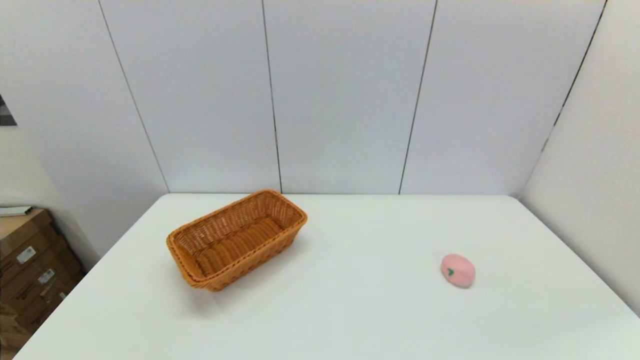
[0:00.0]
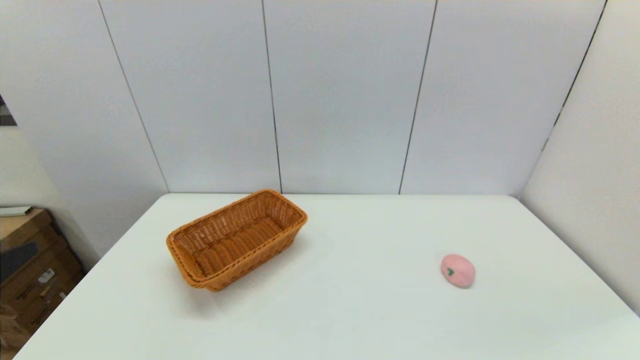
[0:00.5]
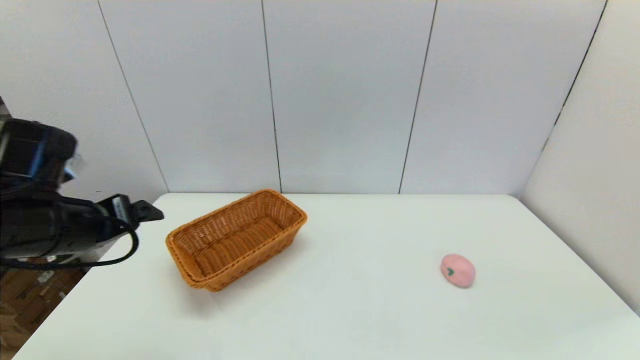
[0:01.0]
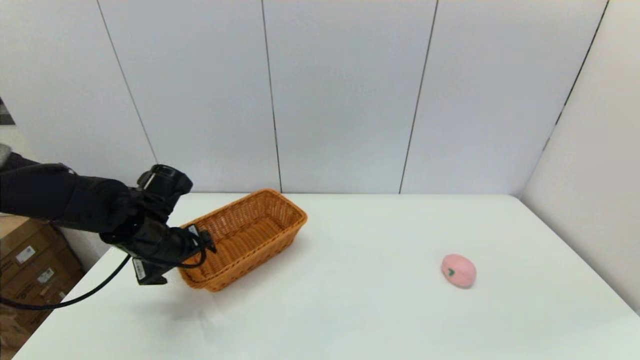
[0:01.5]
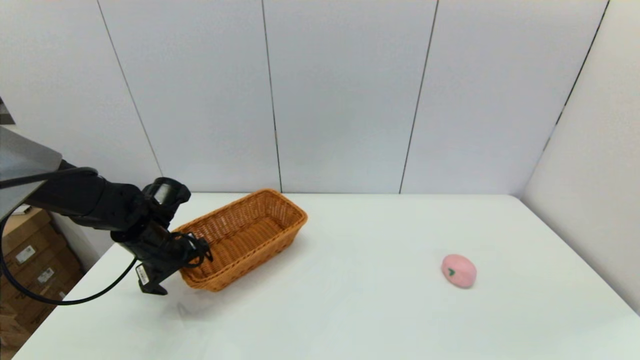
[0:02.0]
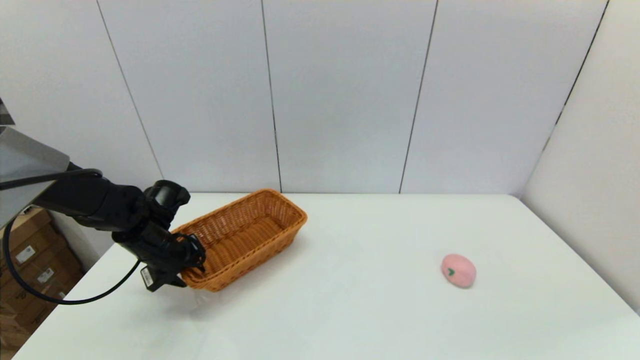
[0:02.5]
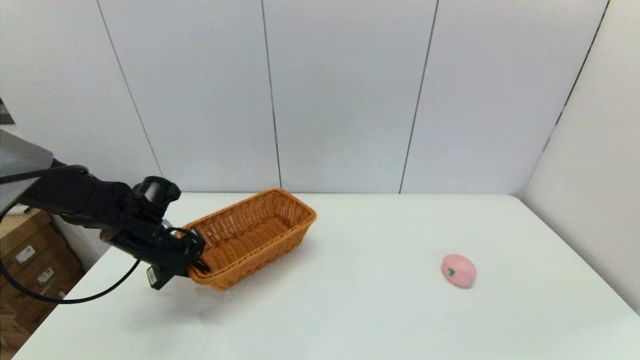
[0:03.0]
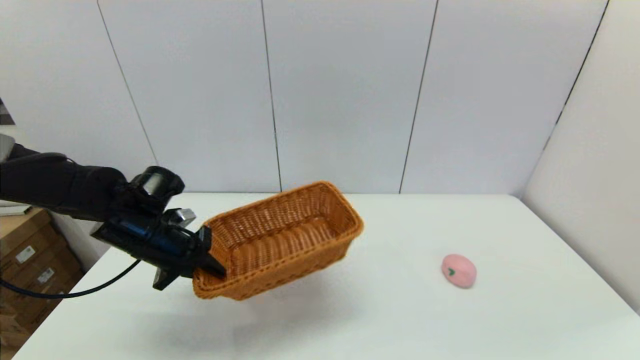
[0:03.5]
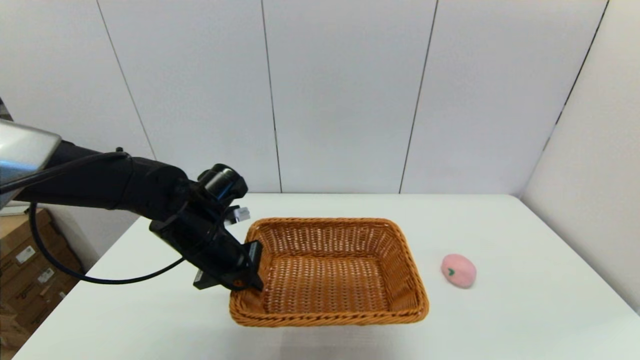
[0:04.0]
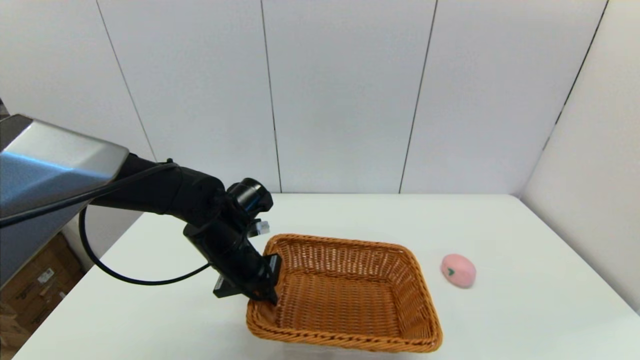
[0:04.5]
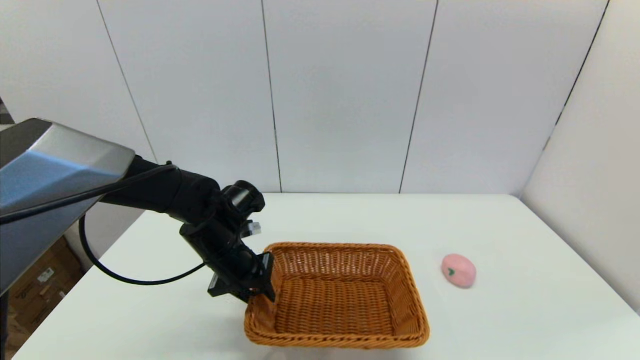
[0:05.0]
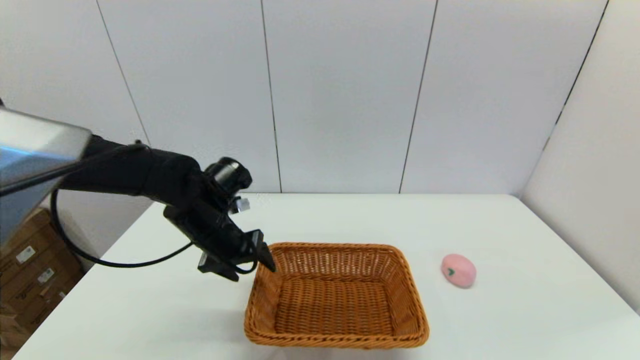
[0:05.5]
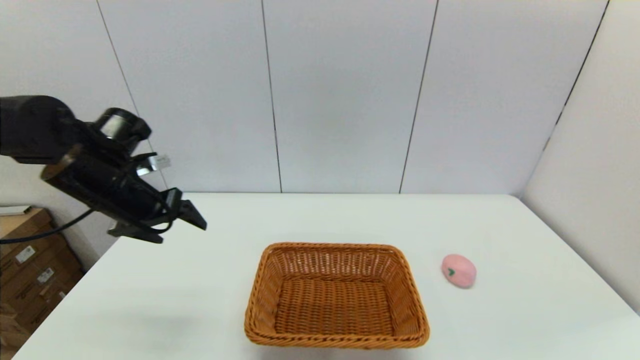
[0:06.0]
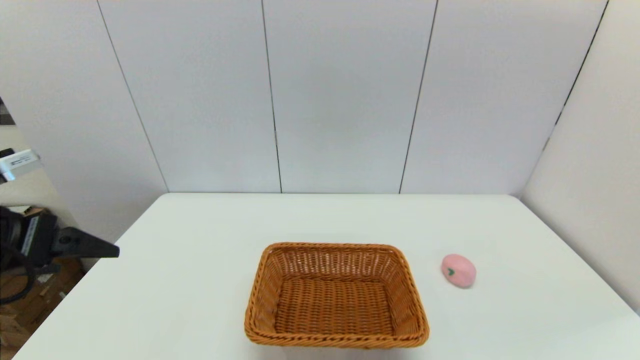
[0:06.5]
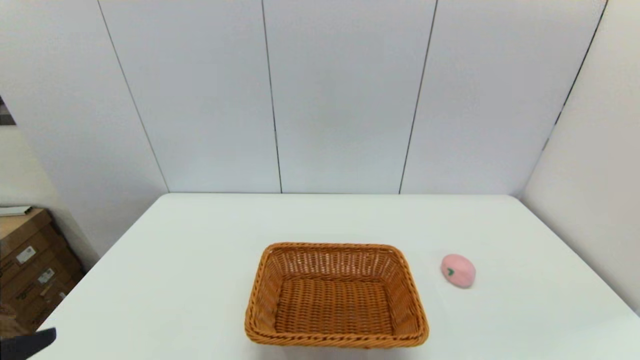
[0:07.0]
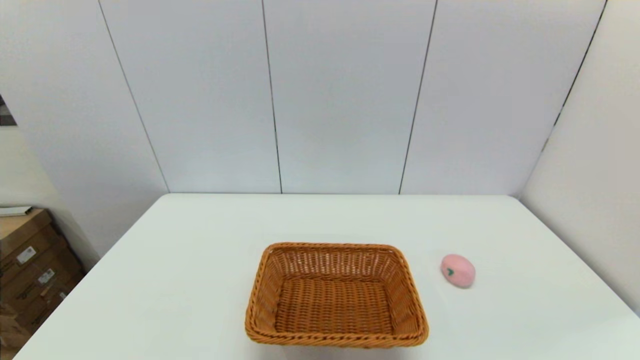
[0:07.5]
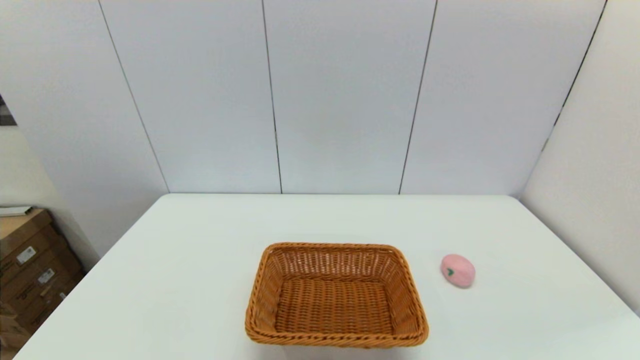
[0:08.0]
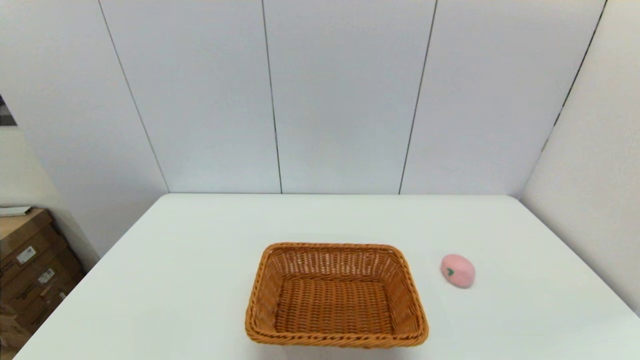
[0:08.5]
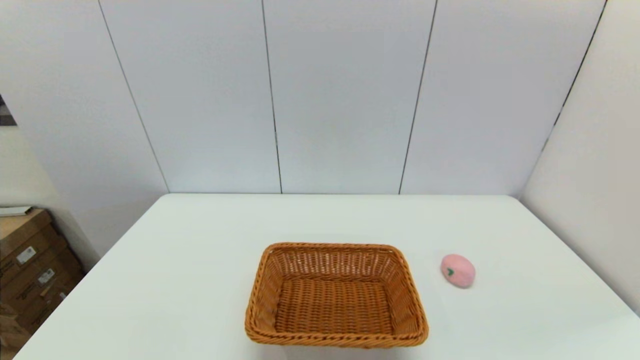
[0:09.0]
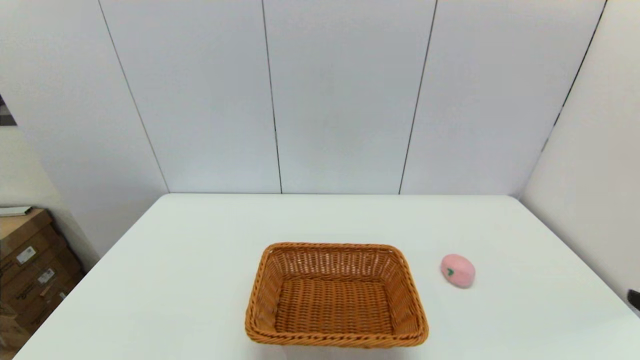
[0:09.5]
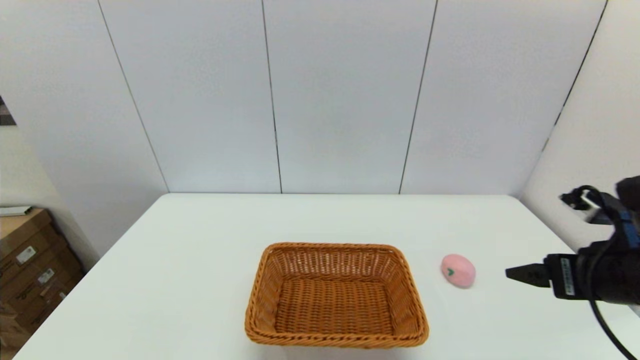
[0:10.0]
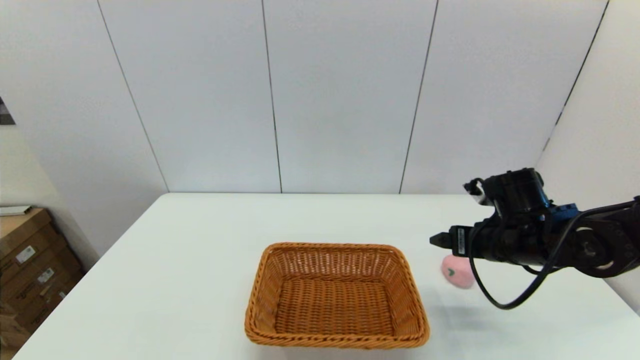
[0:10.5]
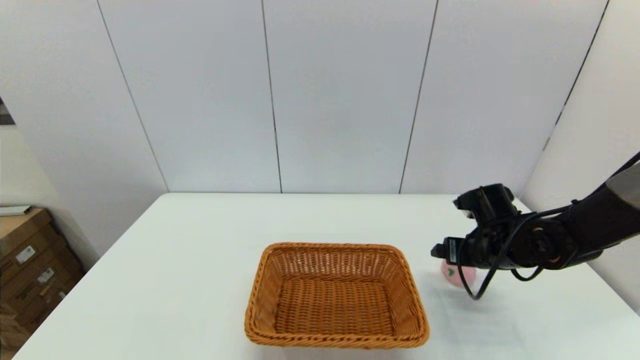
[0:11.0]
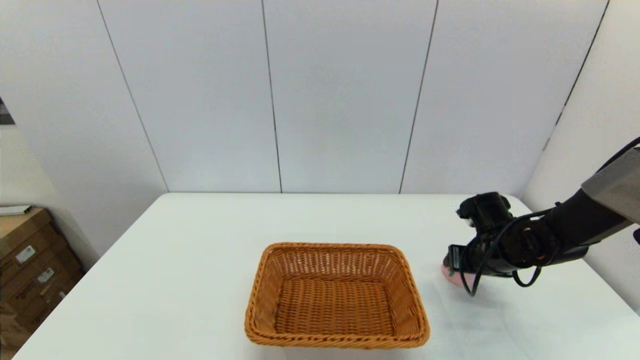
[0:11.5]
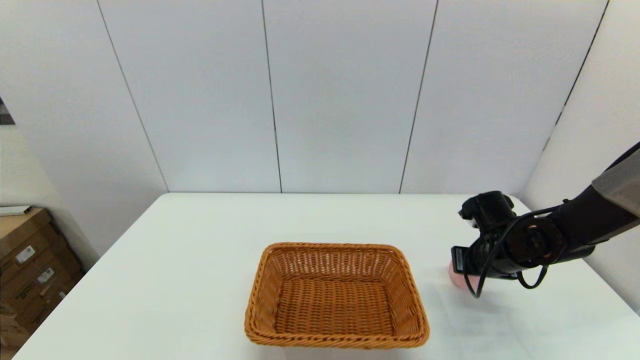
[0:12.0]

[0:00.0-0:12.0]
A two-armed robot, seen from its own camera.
Step, 0:00.0 to 0:02.5: Grasp the light basket with the left gripper.
Step, 0:03.0 to 0:05.0: Place the light basket on the middle of the table with the left gripper.
Step, 0:05.5 to 0:11.5: Grasp the peach with the right gripper.
0:00.0 to 0:02.0: The left gripper travels forward by about 35 cm.
0:02.0 to 0:04.0: The left gripper travels to the right and upward by roughly 15 cm, and closes up.
0:04.0 to 0:06.0: The left gripper goes approximately 15 cm to the left and upward, and opens its fingers.
0:06.0 to 0:08.0: The left gripper goes approximately 35 cm backward.
0:08.0 to 0:10.0: The right gripper goes about 25 cm forward and upward.
0:10.0 to 0:12.0: The right gripper is displaced forward and downward by about 20 cm, and closes.

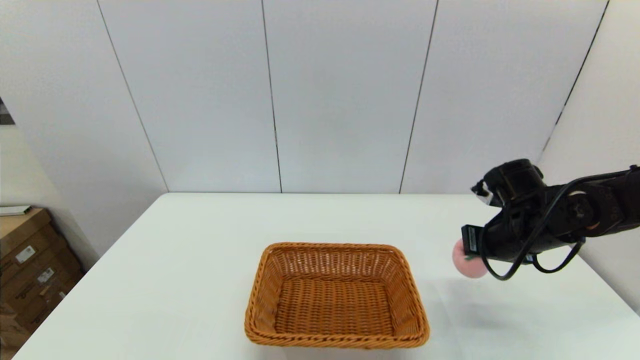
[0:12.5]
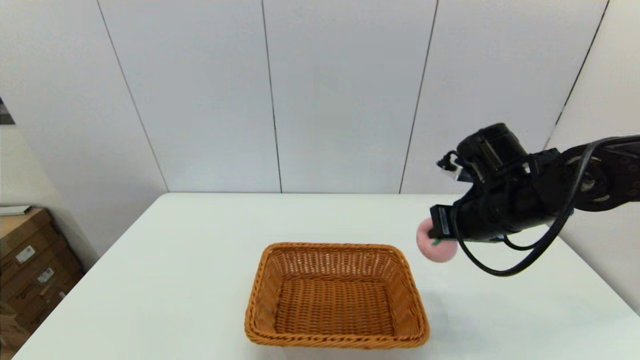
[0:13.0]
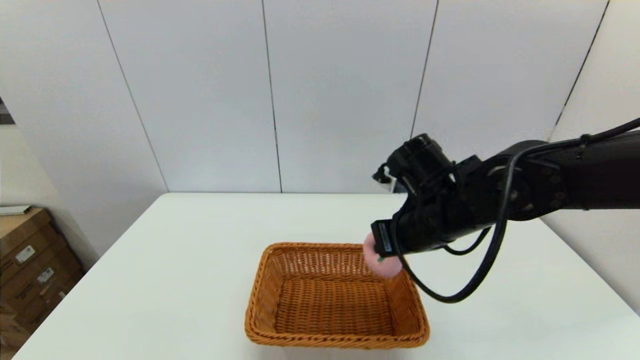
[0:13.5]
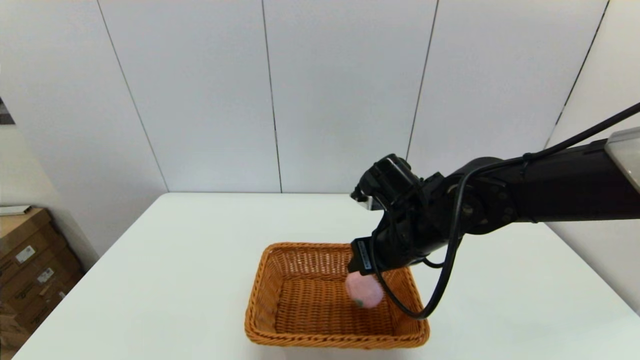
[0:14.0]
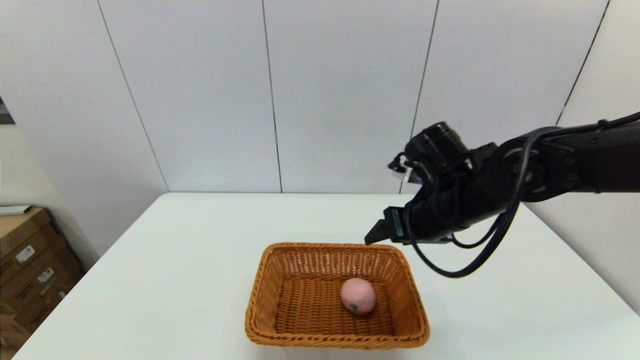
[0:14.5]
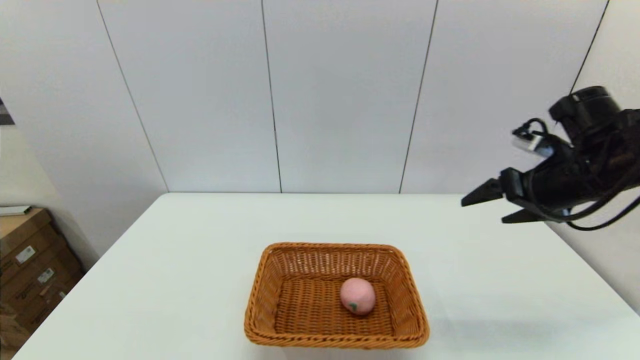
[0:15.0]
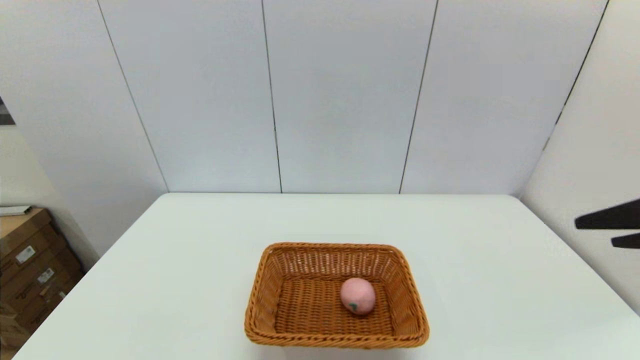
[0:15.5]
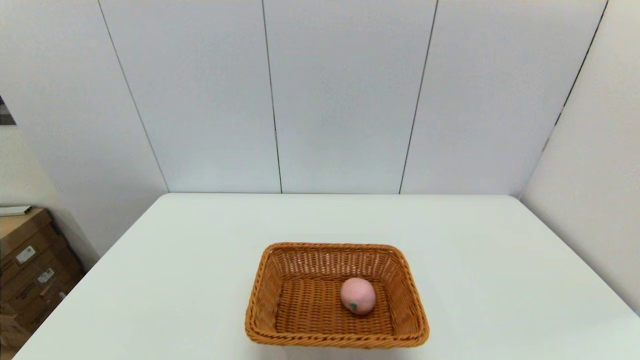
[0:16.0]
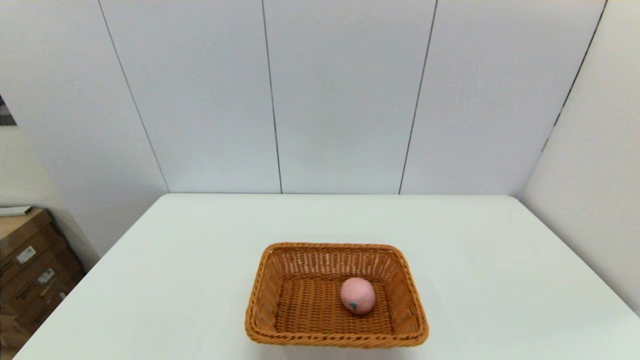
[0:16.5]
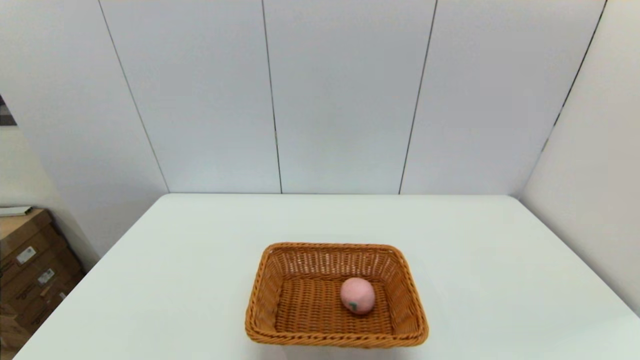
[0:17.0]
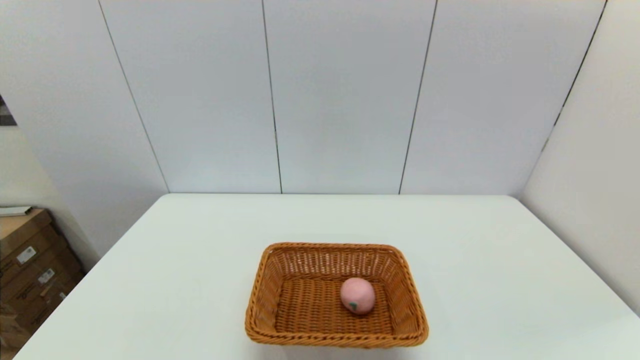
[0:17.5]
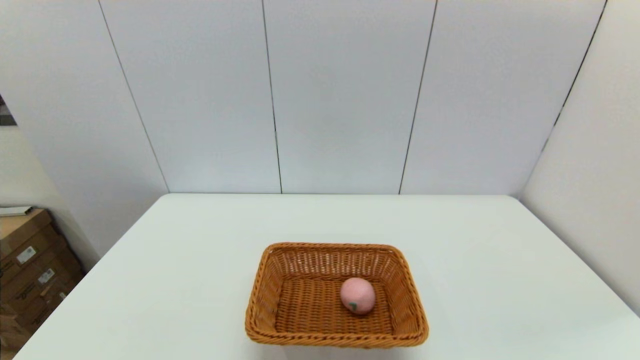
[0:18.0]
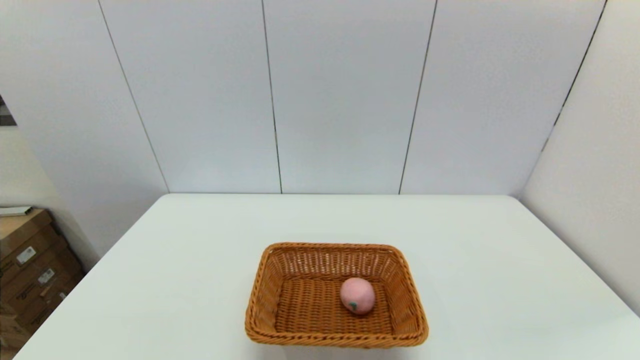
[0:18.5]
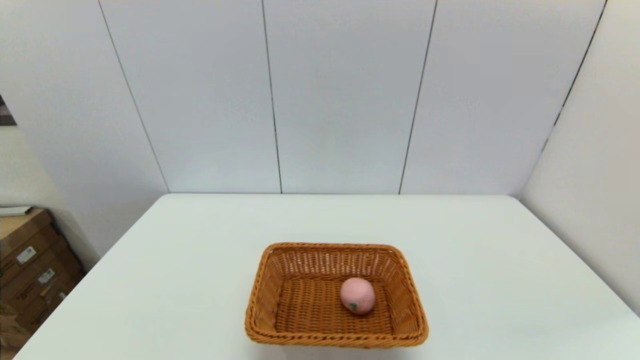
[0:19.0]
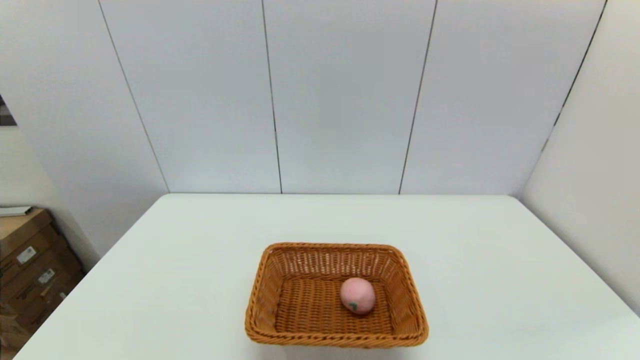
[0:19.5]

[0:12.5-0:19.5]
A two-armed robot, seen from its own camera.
Step, 0:12.5 to 0:14.0: Place the peach into the light basket with the right gripper.
0:12.5 to 0:14.5: The right gripper travels to the left and upward by about 15 cm, and opens.
0:14.5 to 0:16.0: The right gripper shifts approximately 30 cm backward and to the right.
